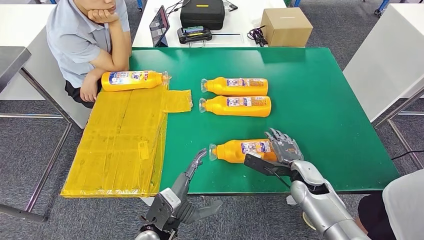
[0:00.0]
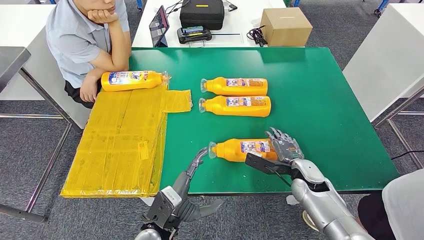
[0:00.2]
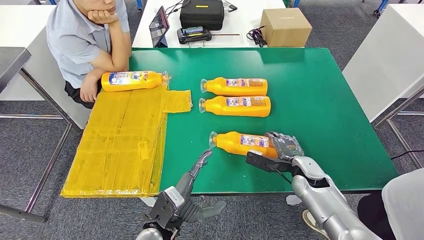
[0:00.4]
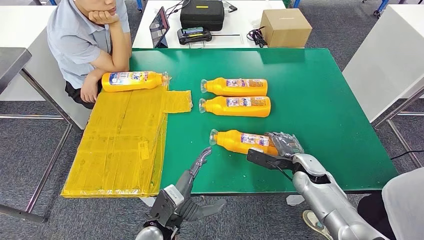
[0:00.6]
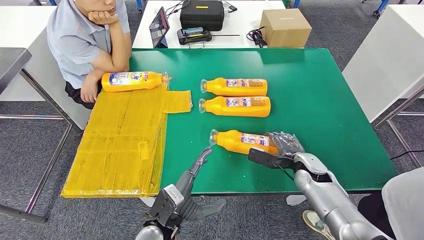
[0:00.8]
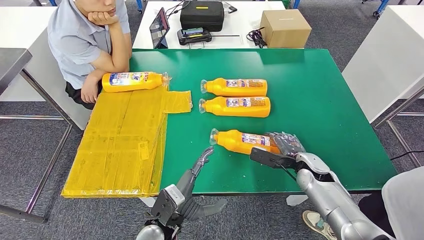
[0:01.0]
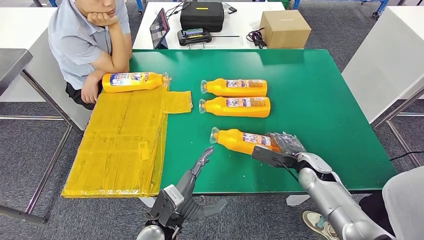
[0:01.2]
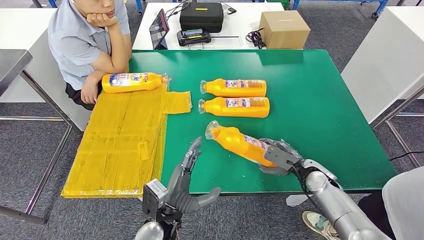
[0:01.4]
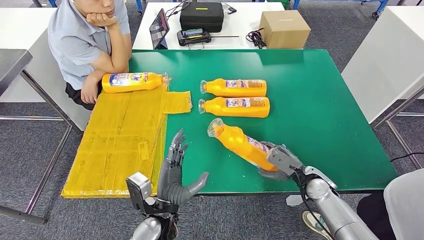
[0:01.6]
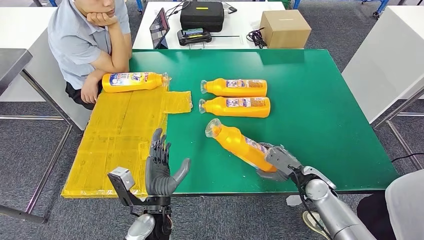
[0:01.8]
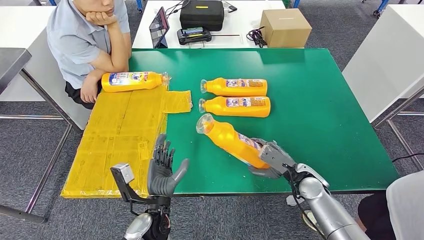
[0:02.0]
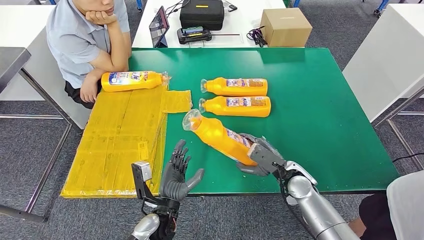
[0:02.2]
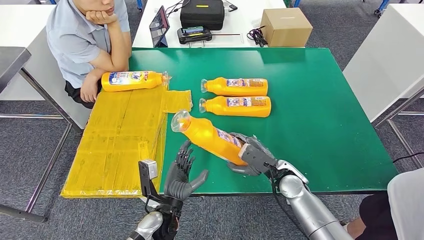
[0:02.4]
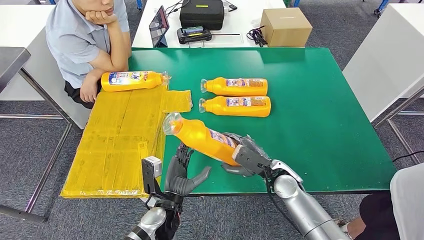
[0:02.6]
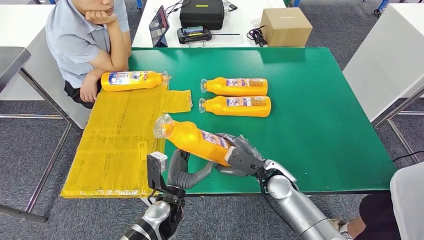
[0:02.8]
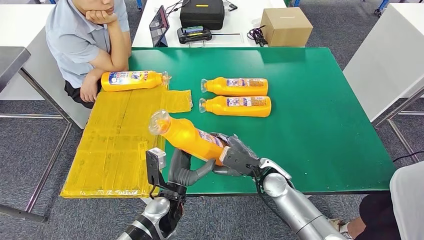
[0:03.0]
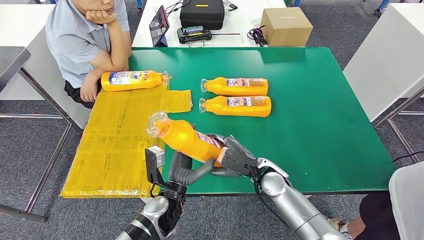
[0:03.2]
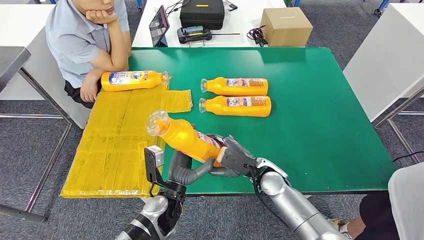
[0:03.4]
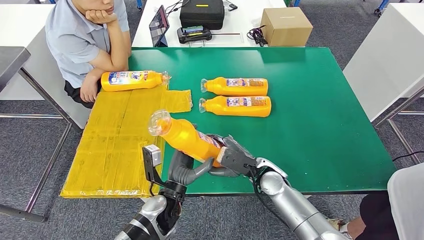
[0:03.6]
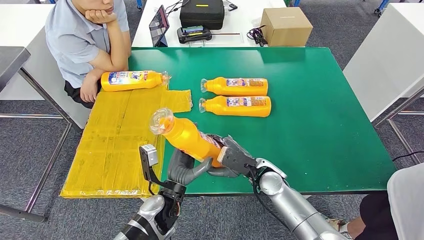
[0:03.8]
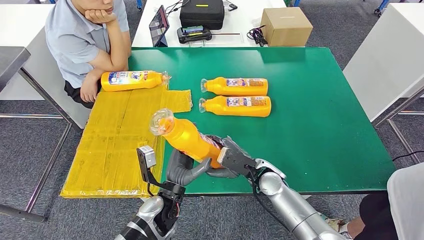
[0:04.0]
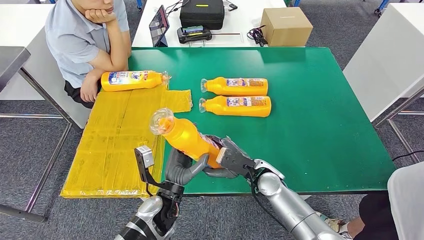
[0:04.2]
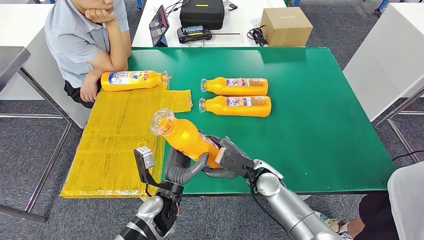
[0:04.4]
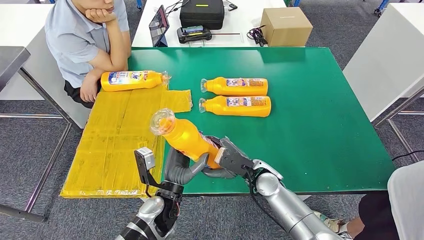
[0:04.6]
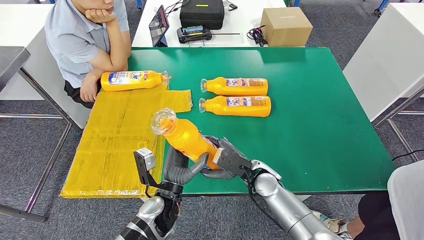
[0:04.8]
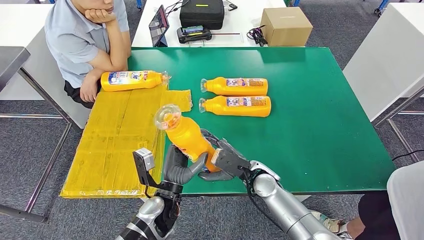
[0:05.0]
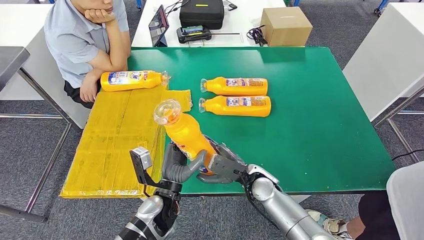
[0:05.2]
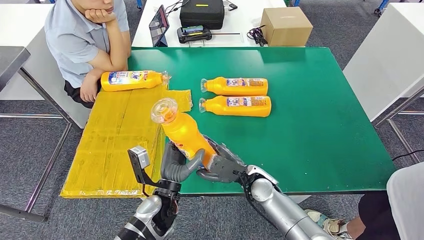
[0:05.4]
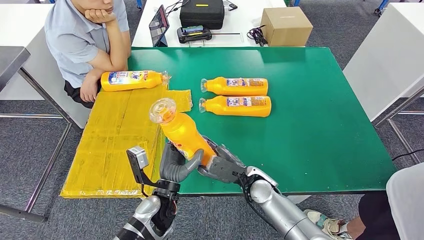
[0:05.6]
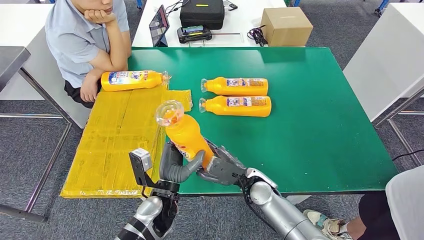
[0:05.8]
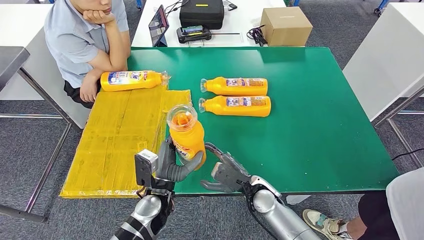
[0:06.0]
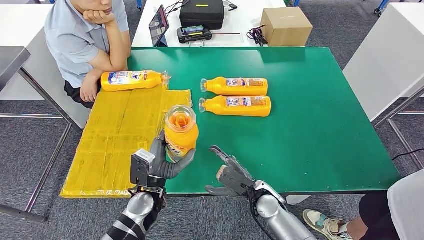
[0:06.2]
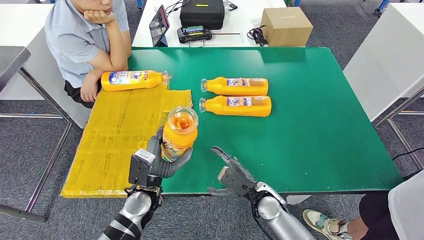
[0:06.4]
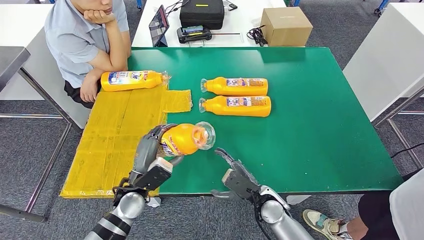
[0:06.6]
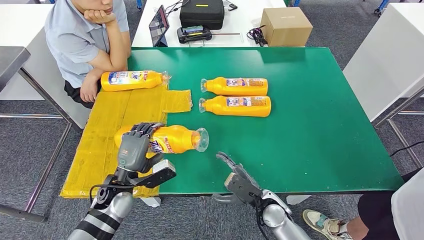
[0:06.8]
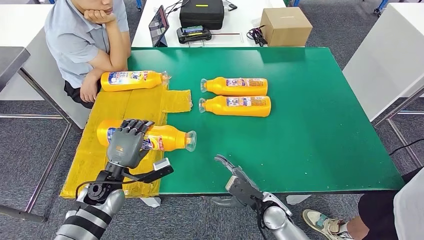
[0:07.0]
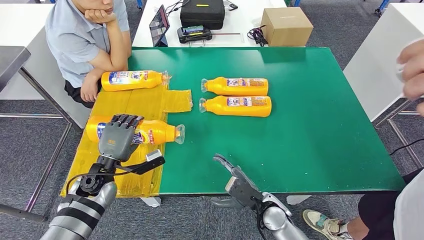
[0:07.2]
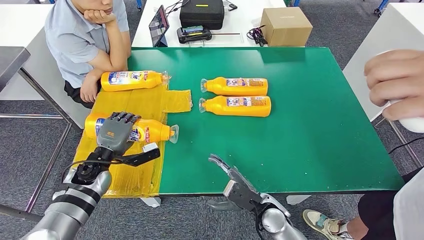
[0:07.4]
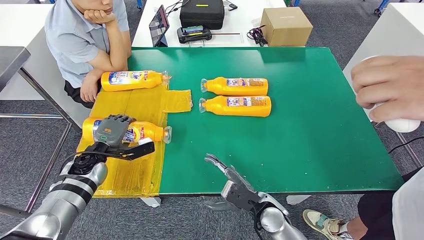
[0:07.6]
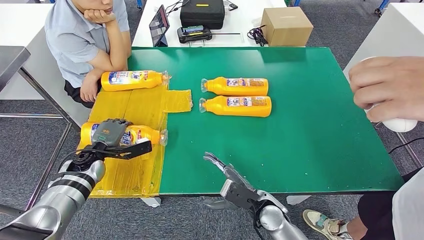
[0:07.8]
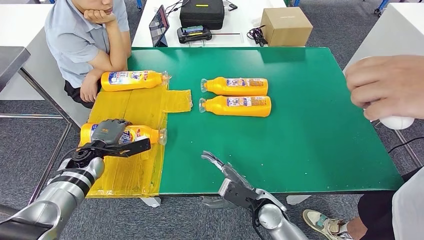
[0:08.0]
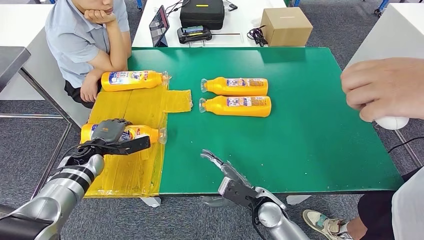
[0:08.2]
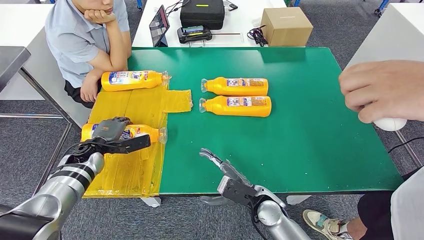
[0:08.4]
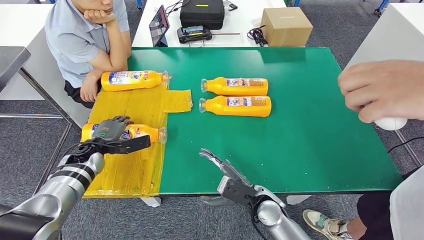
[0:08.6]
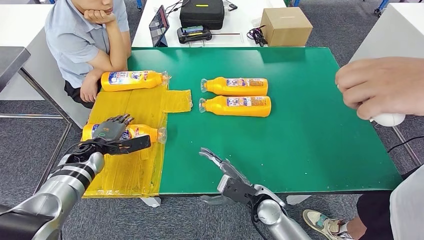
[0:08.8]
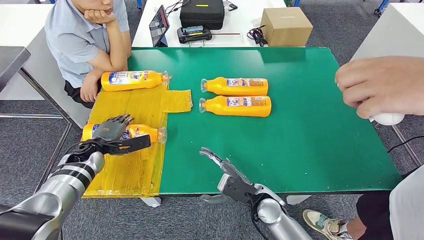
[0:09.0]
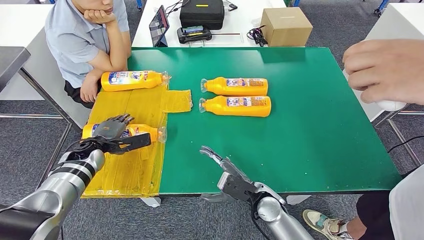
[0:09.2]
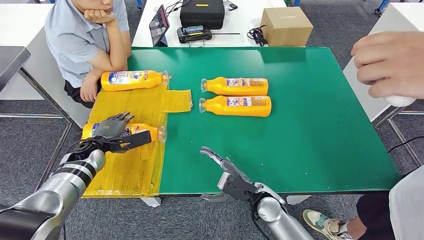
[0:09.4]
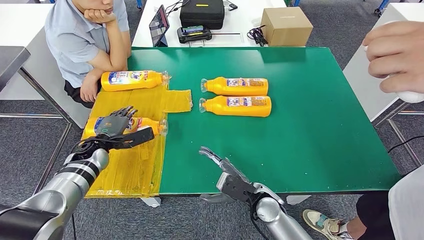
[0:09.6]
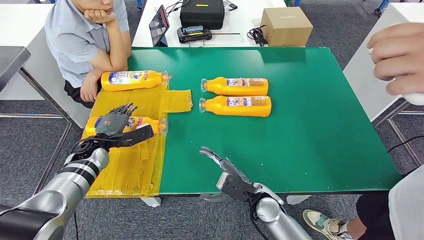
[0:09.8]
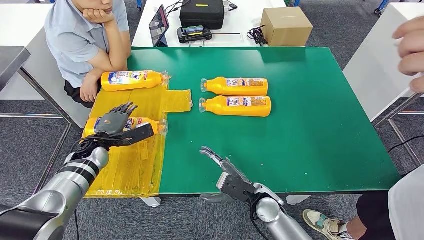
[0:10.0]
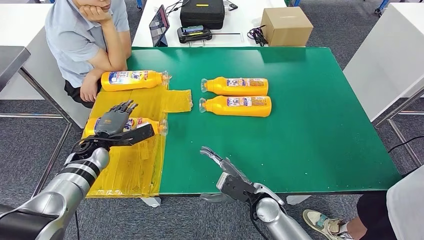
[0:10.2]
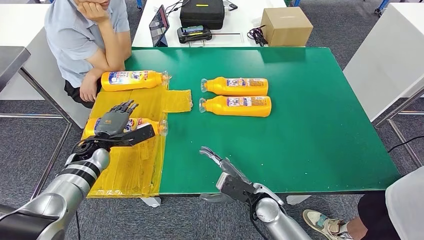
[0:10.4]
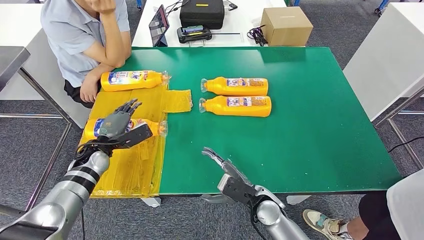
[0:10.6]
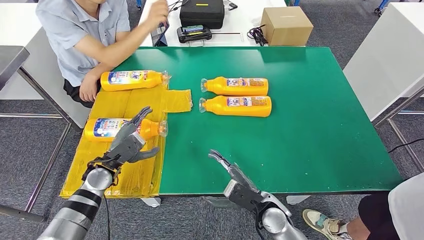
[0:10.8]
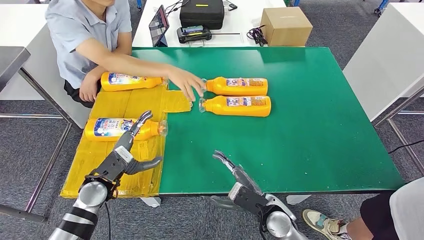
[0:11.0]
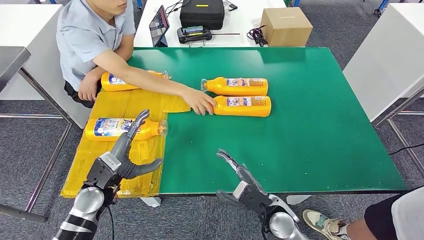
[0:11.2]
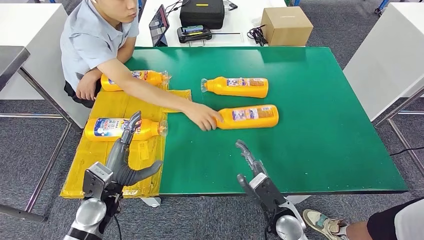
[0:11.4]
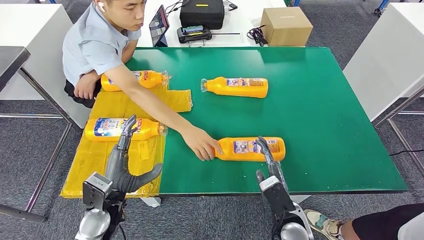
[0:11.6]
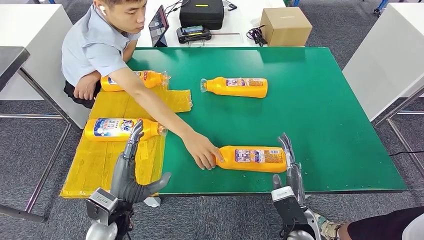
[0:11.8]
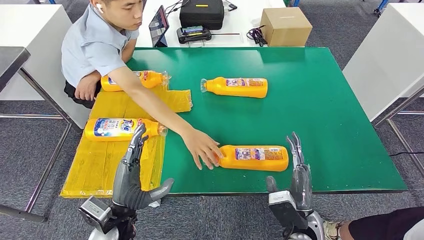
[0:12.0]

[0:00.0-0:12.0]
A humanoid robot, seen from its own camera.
Step, 0:00.0 to 0:03.8: Pick up the bottle from the table.
Step, 0:04.0 to 0:08.0: Flip the bottle to face forward.
0:03.0 to 0:04.4: The hands move only a little.
0:06.0 to 0:07.6: The left hand moves to the left and forward, roughly 25 cm.
0:07.6 to 0:09.0: The hands stay close to where they were, moving slightly.
0:09.0 to 0:10.4: The hands make only small movements.

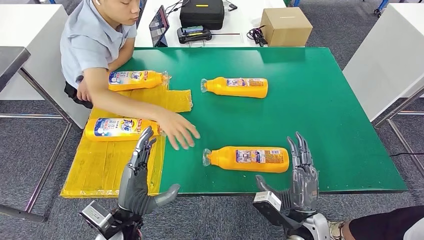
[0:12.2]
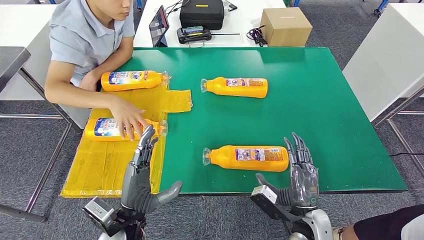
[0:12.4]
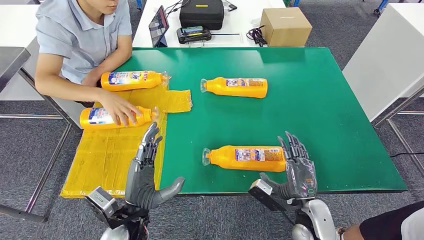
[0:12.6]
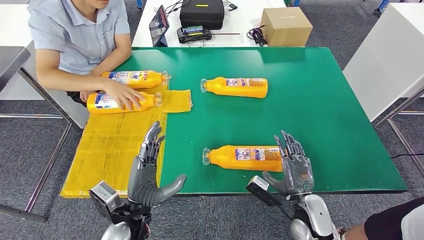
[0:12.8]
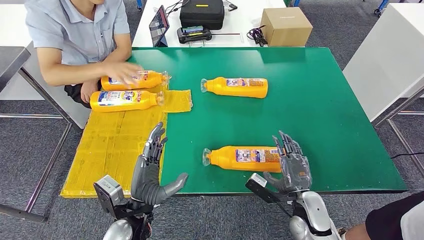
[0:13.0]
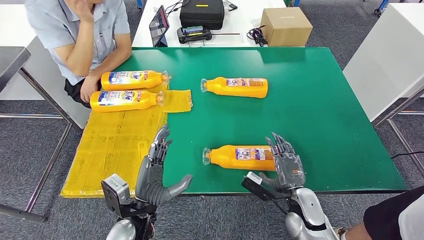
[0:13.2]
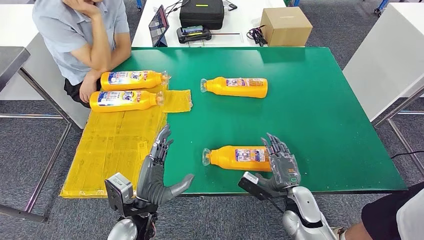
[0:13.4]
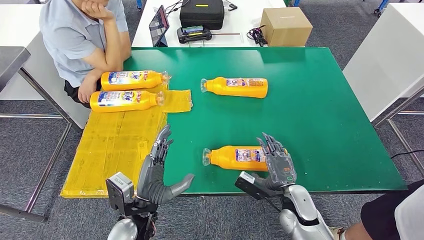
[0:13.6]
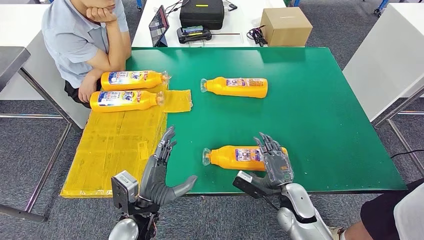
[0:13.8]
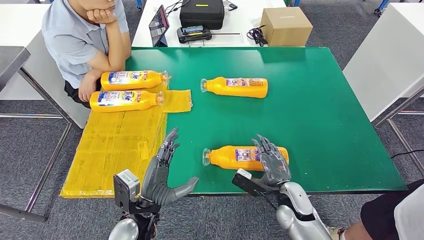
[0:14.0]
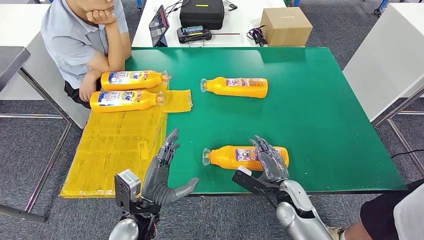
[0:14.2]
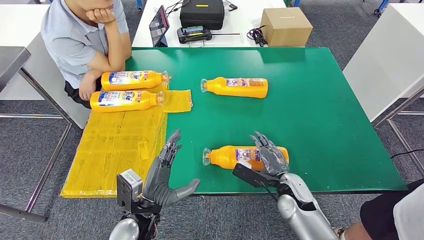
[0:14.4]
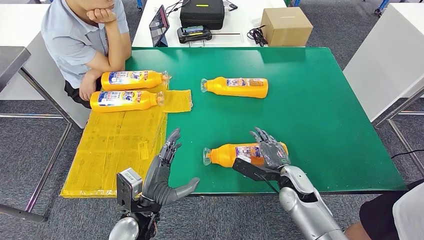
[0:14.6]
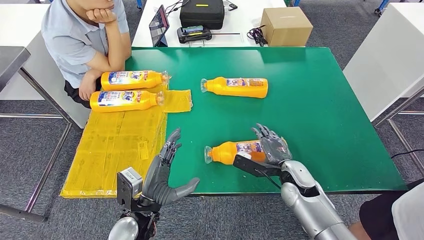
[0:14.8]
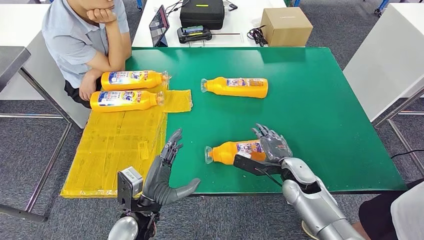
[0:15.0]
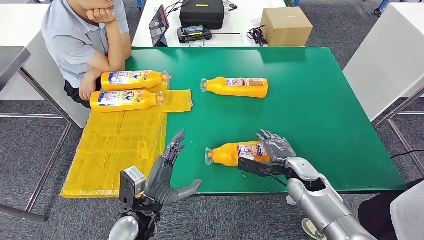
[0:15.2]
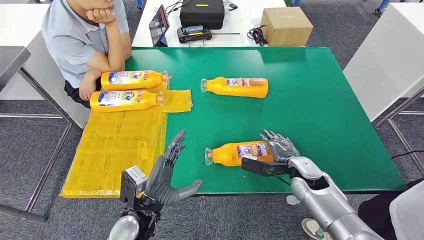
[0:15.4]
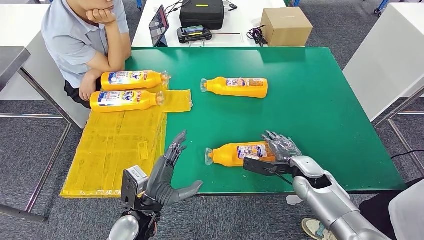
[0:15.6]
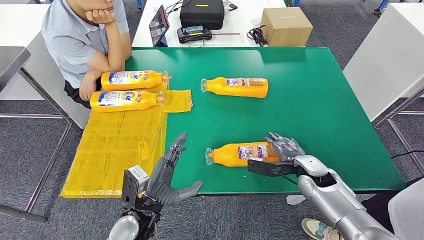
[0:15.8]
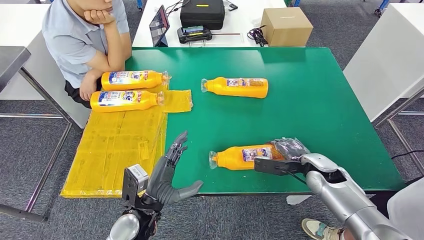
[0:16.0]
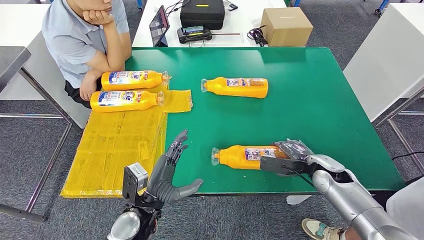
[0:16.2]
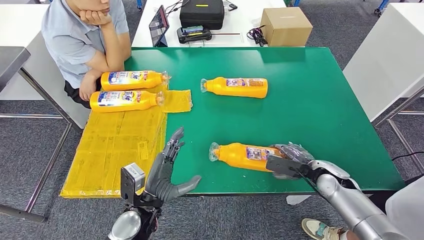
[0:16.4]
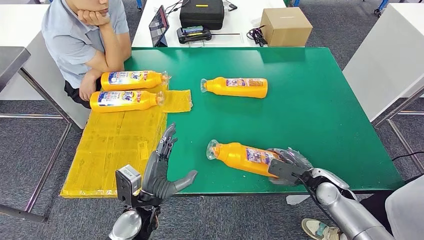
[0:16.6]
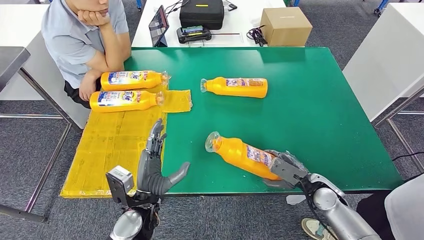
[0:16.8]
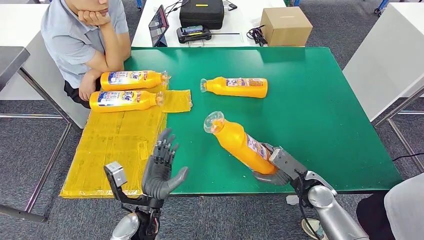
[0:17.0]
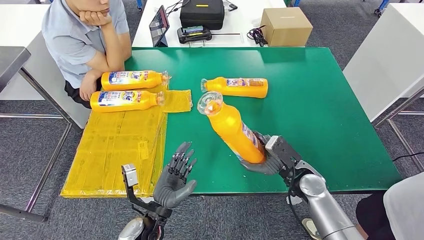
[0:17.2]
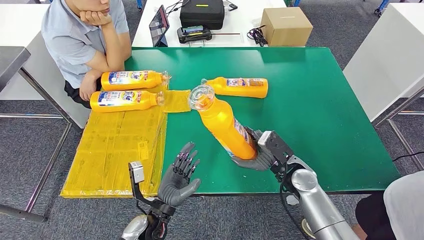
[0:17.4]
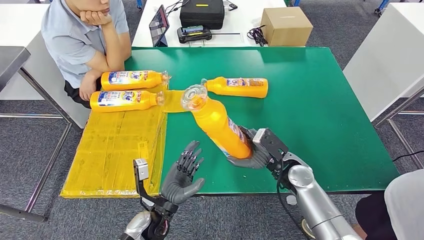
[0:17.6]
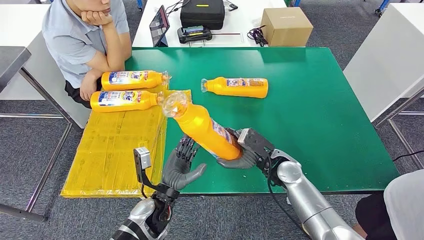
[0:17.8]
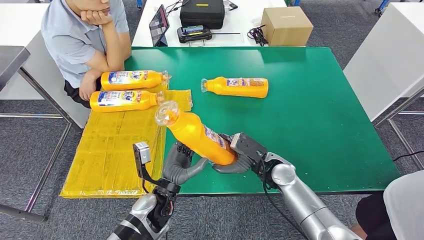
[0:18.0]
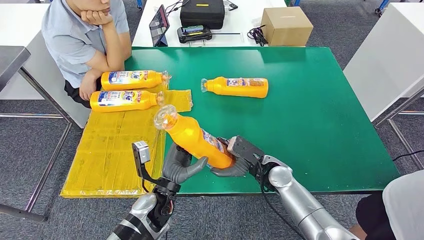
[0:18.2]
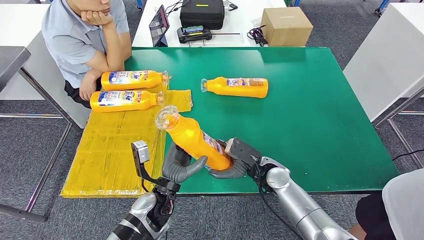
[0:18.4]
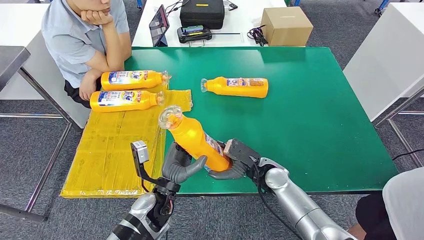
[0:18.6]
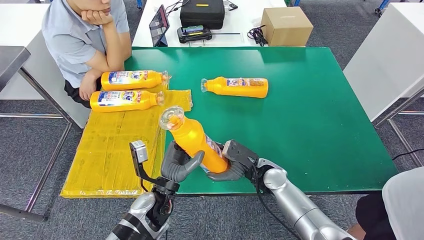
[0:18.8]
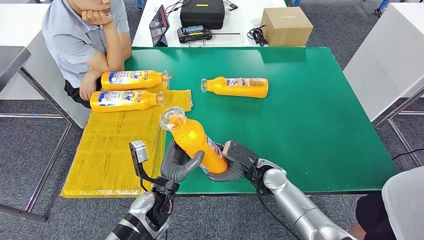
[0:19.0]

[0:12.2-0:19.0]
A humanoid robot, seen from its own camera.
Step, 0:12.2 to 0:18.4: Pick up the bottle from the table.
0:13.6 to 0:15.0: The right hand moves forward, some 5 cm.
0:15.0 to 0:16.2: The right hand goes roughly 10 cm to the right.
0:16.2 to 0:17.6: The left hand shifts by approximately 5 cm. The right hand heads to the left, covering some 10 cm.
0:17.6 to 0:19.0: The right hand travels to the left by some 5 cm. The left hand ends up roughly 5 cm from where it was.
